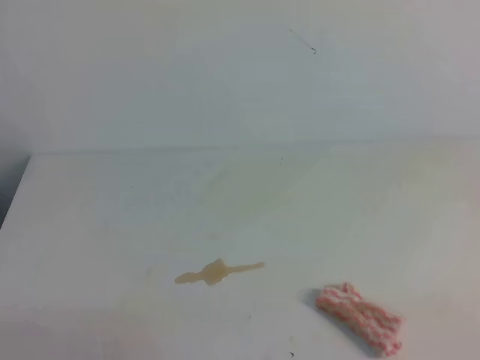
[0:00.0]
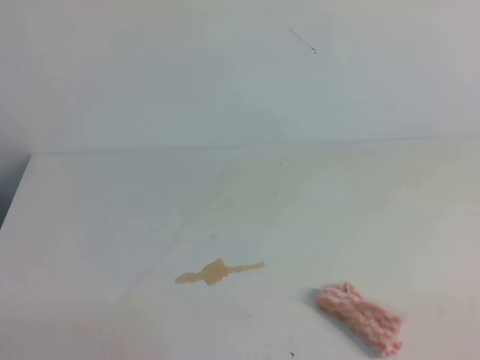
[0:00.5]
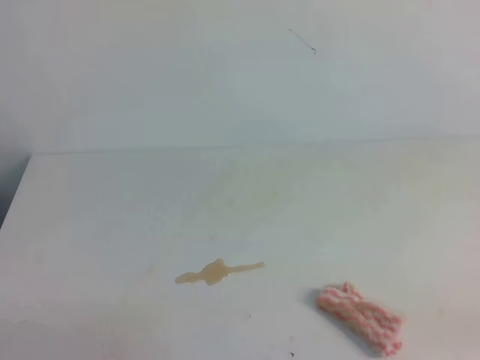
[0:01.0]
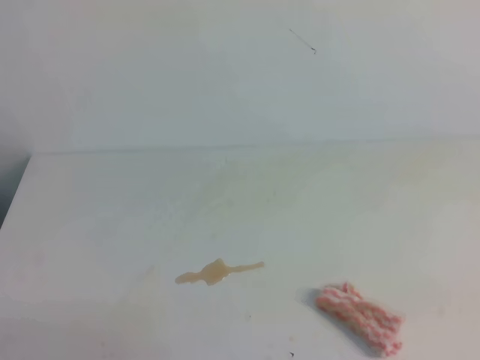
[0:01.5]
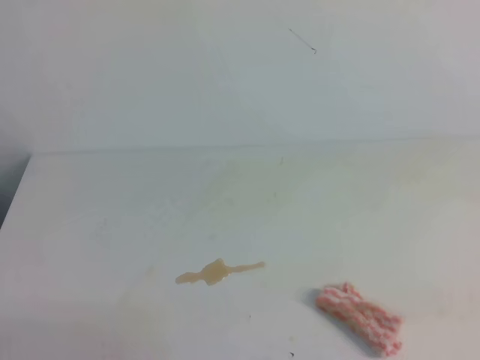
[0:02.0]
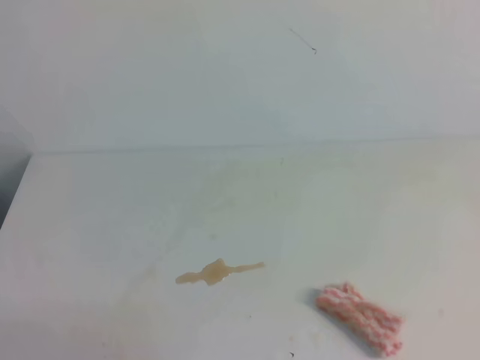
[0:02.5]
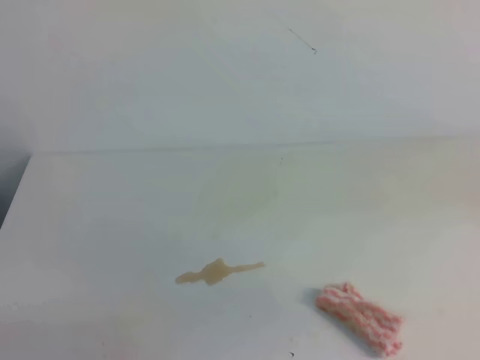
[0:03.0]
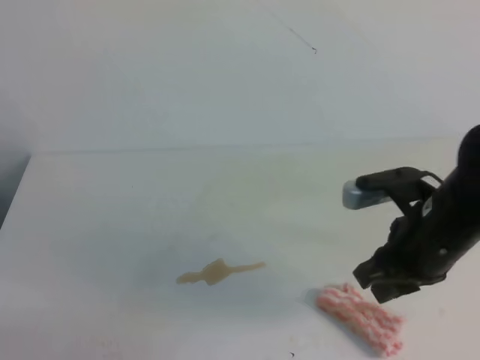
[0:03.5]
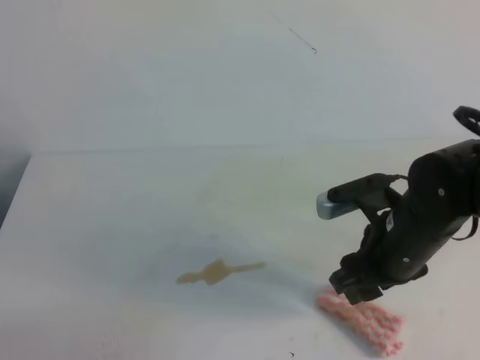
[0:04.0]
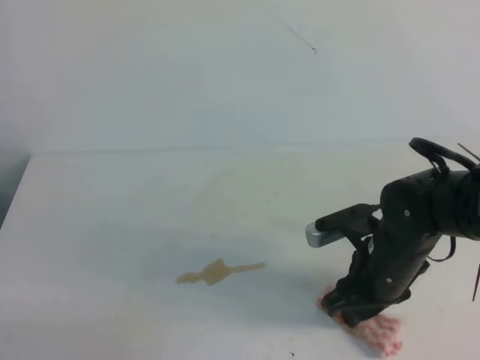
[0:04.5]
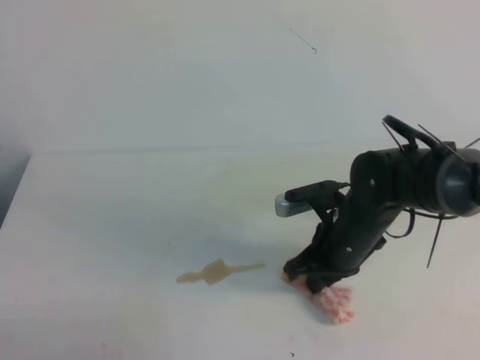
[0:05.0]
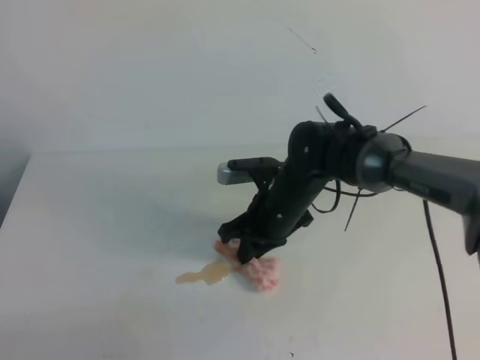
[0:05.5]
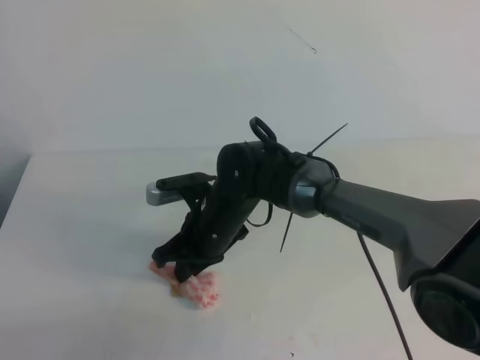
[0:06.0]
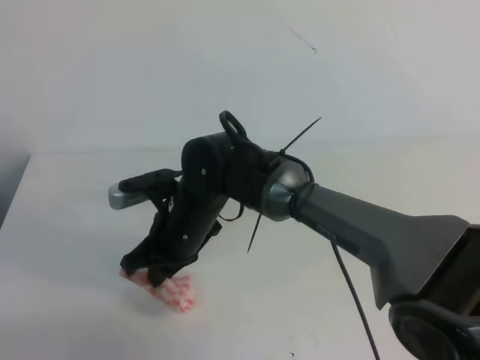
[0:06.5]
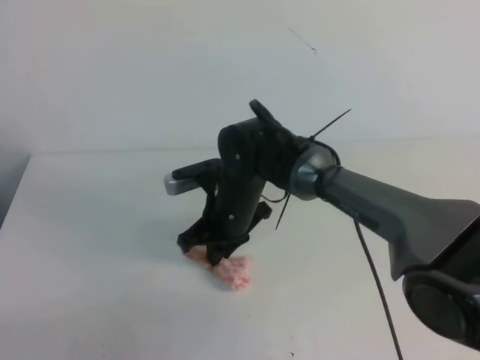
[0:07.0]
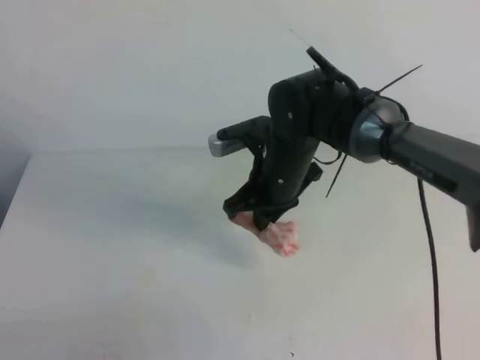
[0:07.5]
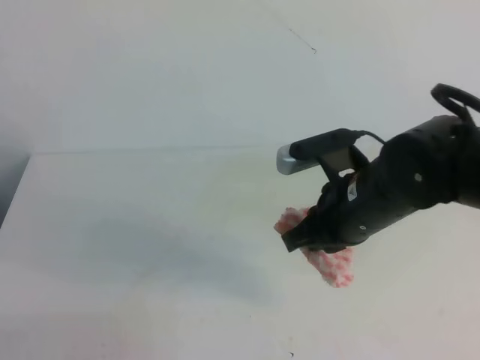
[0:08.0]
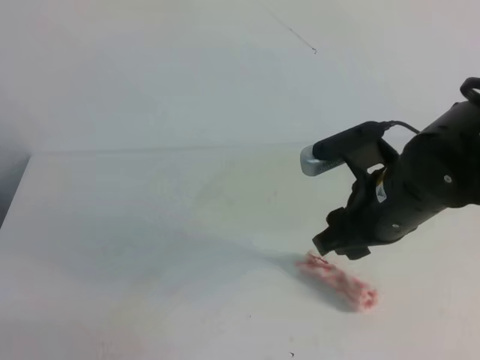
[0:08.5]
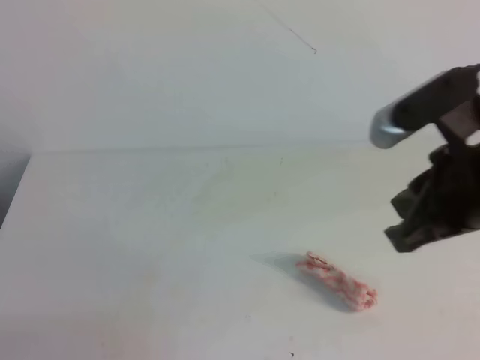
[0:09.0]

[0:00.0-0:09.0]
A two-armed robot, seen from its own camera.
0:02.0 to 0:04.5: The right gripper is displaced forward and to the left by about 30 cm, and opens.
0:04.5 to 0:07.0: The right gripper shifts roughly 20 cm to the left and forward, and closes its fingers.
0:07.0 to 0:09.0: The right gripper shifts about 30 cm to the right, upward and backward, and opens and closes again.

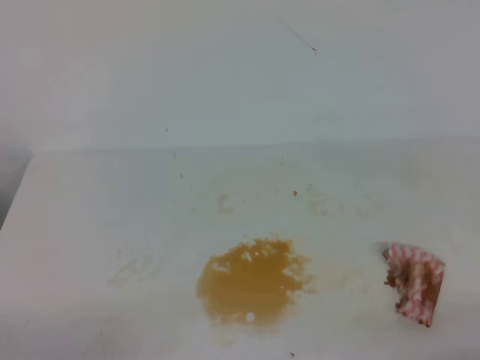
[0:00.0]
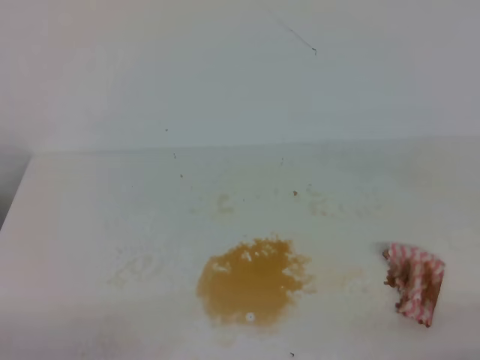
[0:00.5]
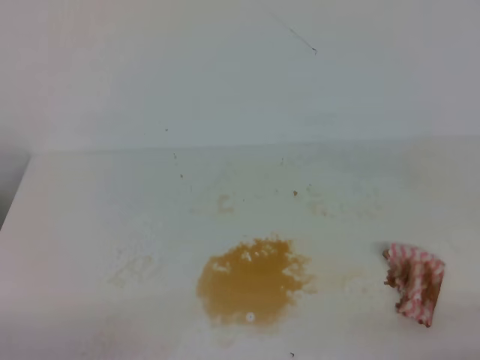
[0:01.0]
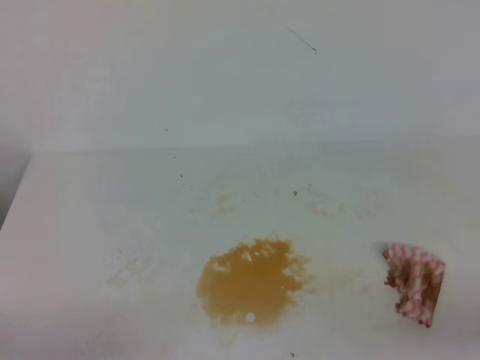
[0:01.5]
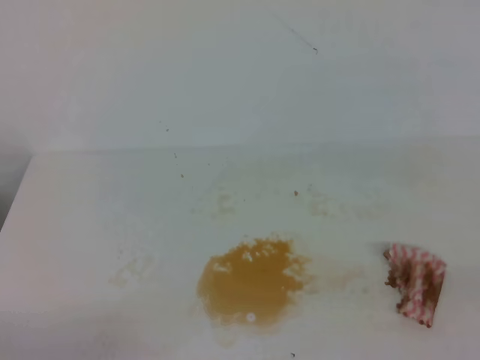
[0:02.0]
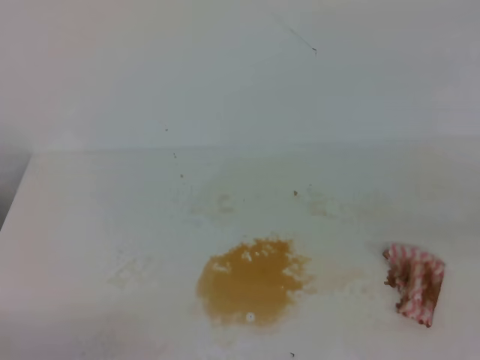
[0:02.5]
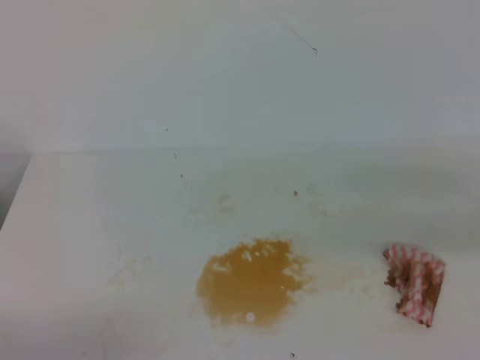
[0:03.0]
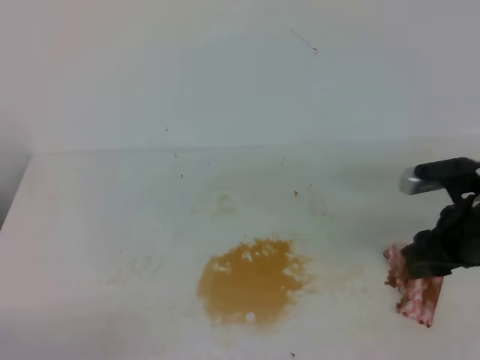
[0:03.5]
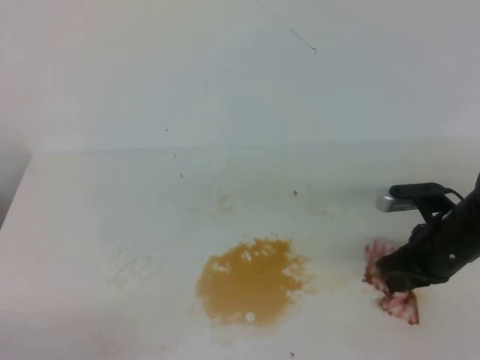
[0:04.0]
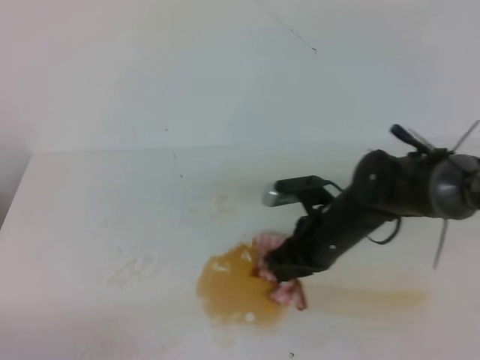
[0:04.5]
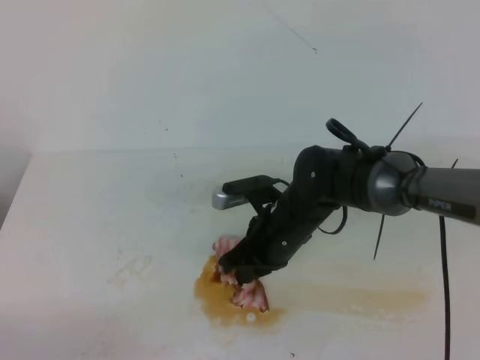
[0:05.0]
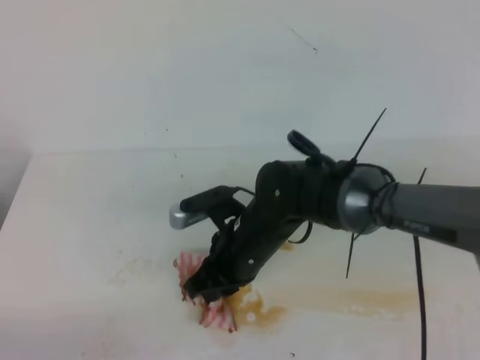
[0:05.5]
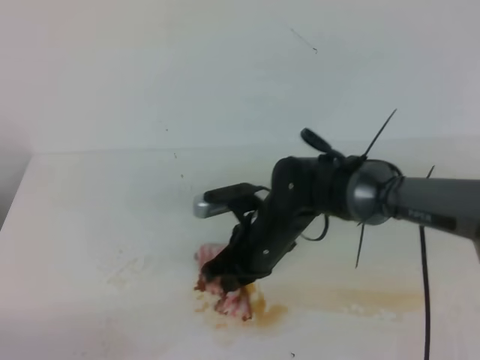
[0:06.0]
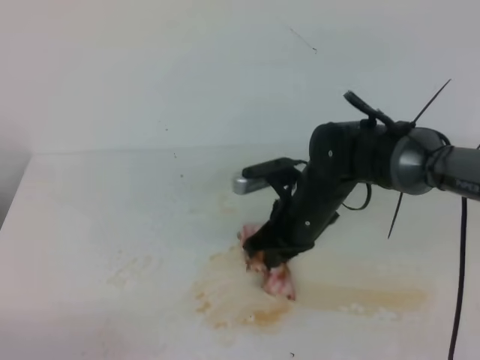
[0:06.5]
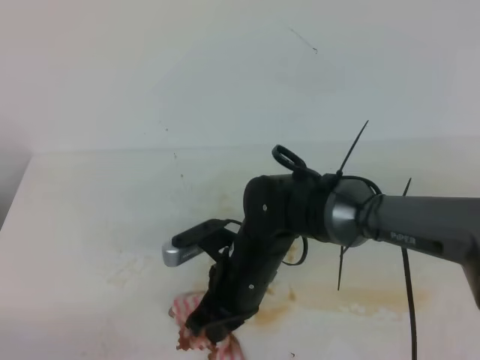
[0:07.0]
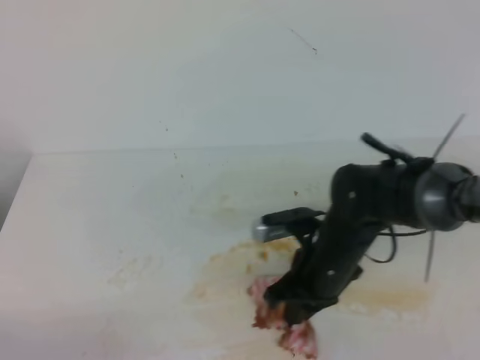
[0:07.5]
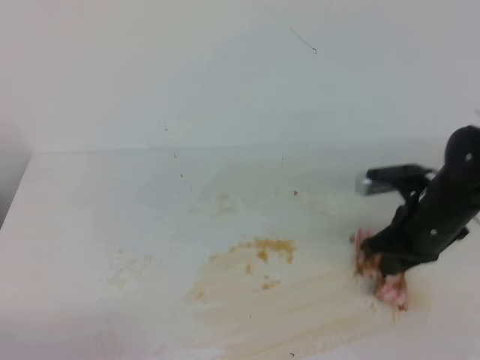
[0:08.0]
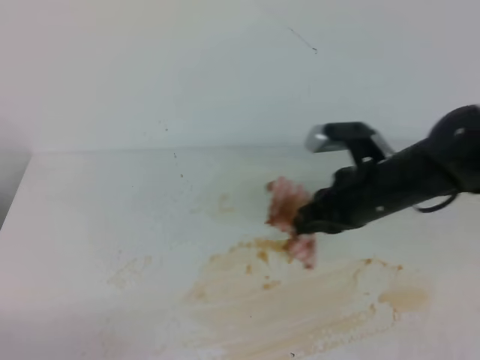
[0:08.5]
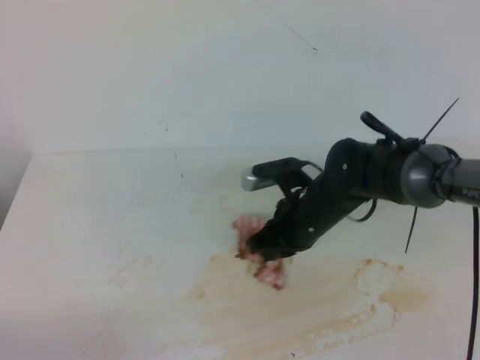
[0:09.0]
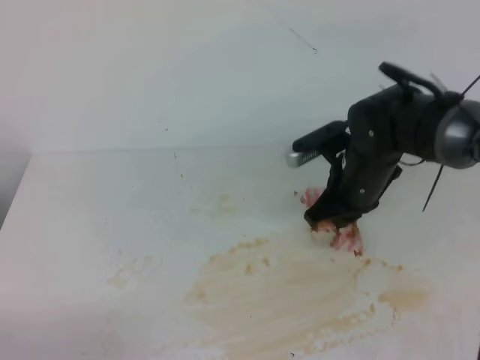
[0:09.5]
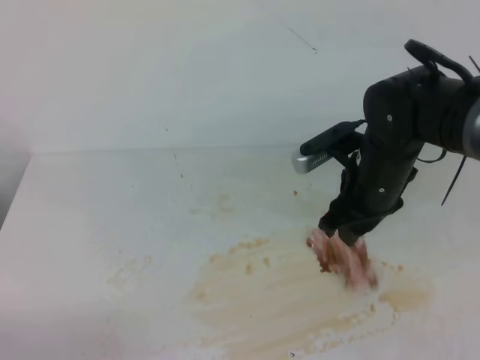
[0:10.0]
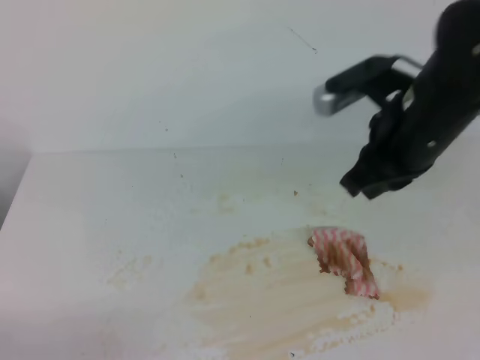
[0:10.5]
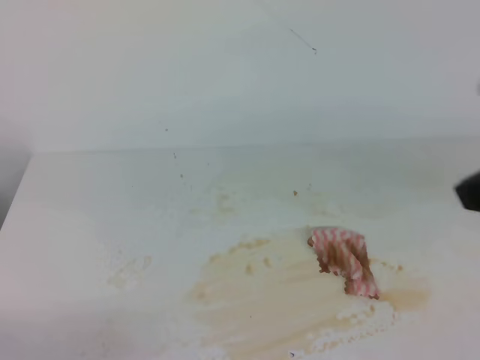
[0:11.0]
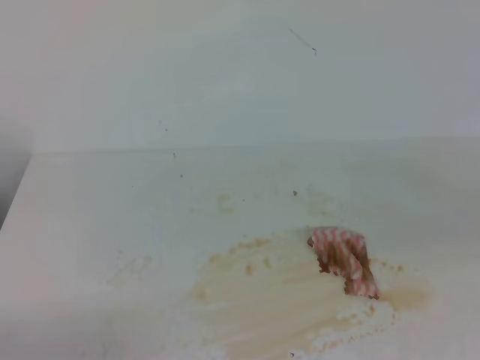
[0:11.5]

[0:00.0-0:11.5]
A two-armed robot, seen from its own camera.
0:02.0 to 0:04.0: The right gripper goes about 30 cm forward and downward, and opens.
0:04.0 to 0:06.0: The right gripper goes roughly 20 cm to the left.
0:06.0 to 0:07.5: The right gripper travels to the right by about 5 cm.
0:07.5 to 0:09.5: The right gripper goes left and right, roughly 10 cm each way, reversing 2 times.
0:09.5 to 0:11.5: The right gripper shifts approximately 40 cm backward, upward and to the right, and opens, then closes once more.
